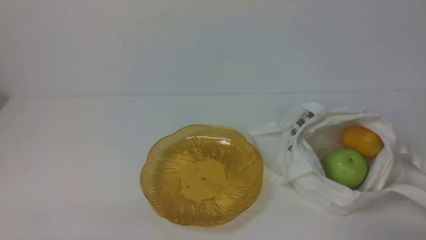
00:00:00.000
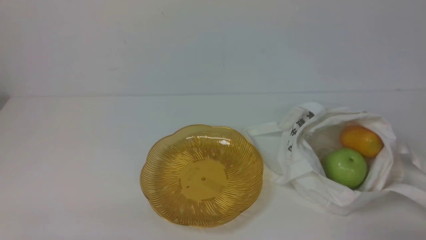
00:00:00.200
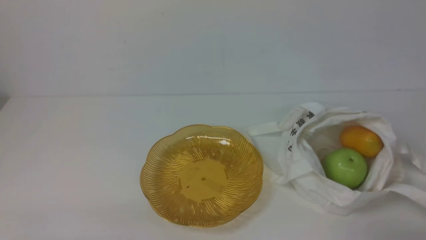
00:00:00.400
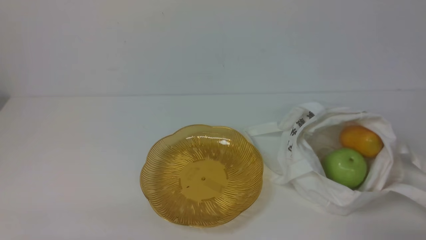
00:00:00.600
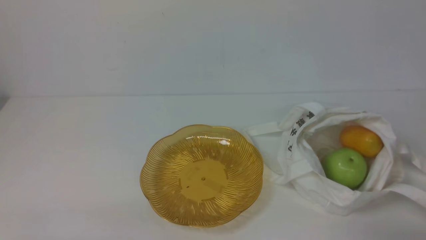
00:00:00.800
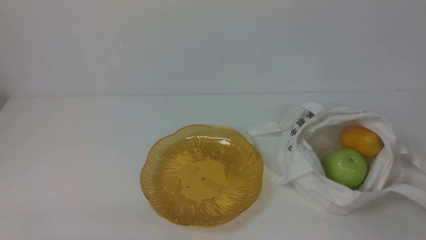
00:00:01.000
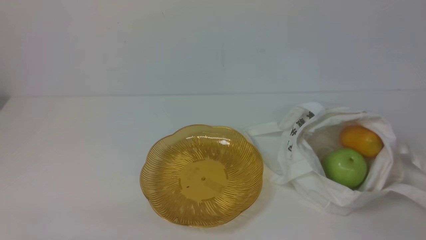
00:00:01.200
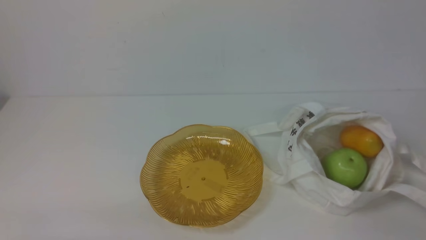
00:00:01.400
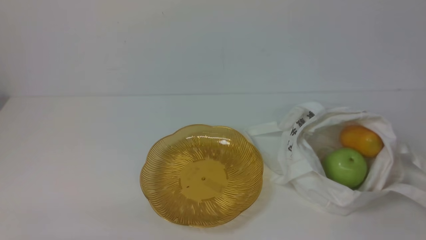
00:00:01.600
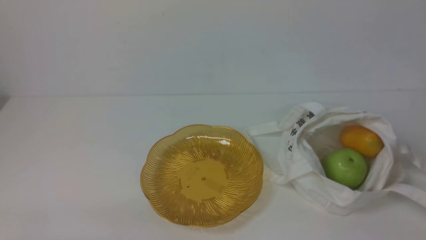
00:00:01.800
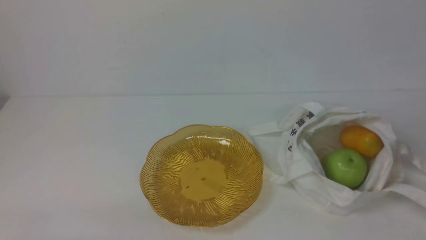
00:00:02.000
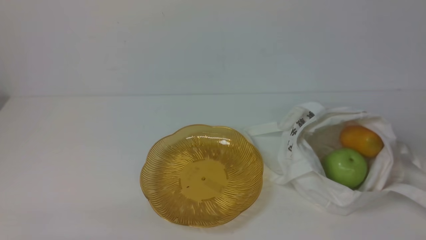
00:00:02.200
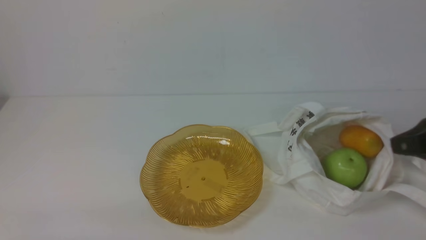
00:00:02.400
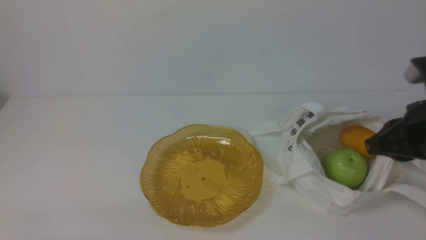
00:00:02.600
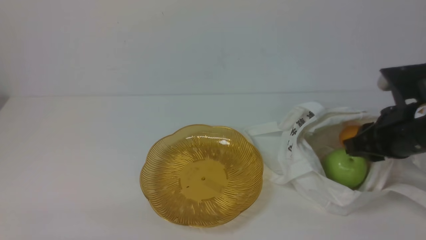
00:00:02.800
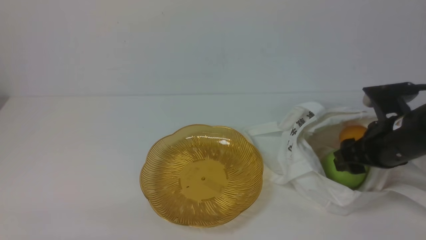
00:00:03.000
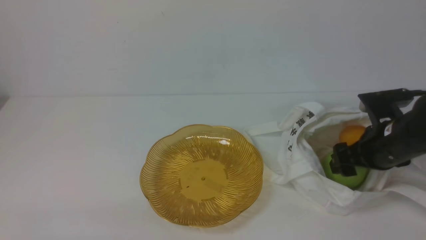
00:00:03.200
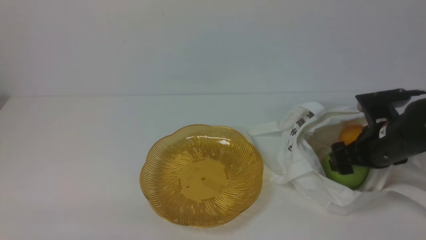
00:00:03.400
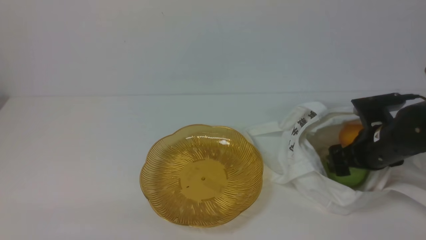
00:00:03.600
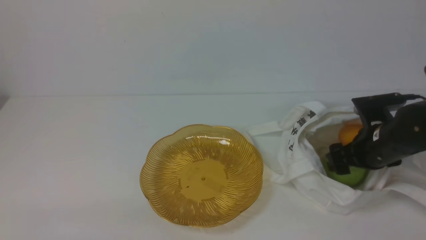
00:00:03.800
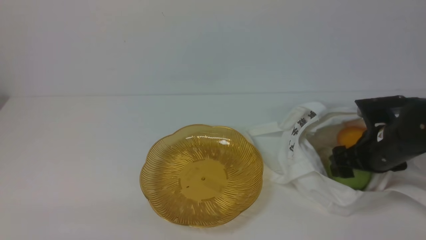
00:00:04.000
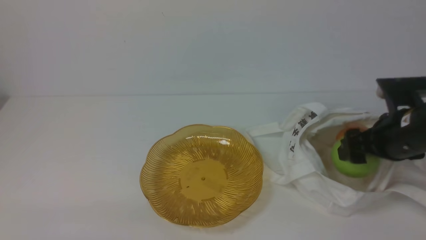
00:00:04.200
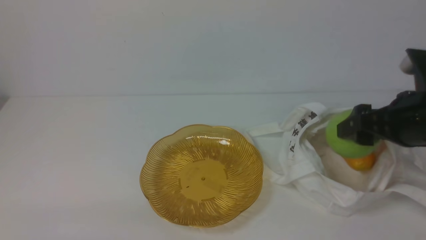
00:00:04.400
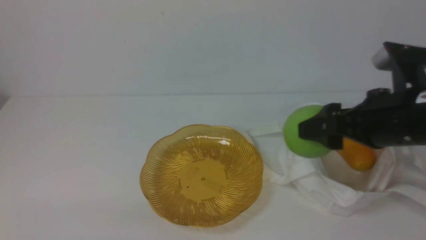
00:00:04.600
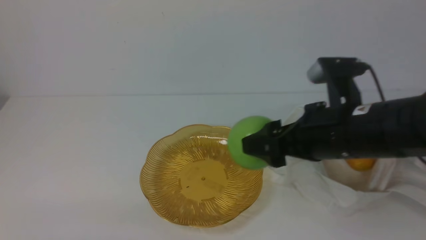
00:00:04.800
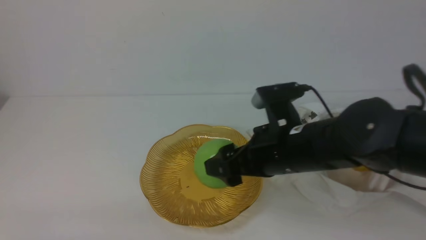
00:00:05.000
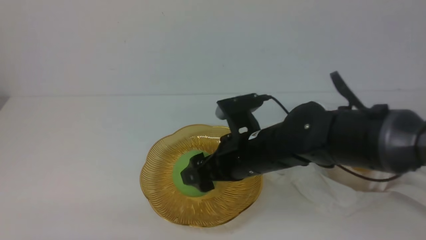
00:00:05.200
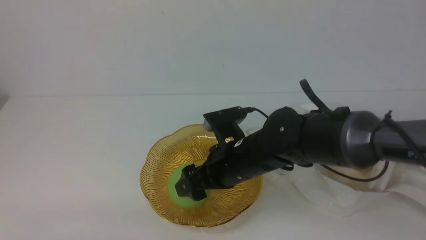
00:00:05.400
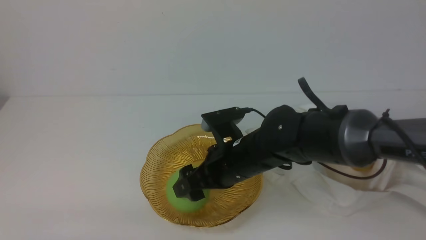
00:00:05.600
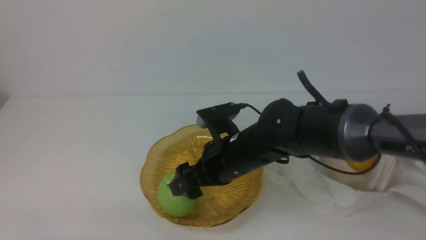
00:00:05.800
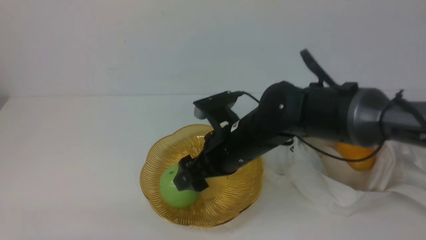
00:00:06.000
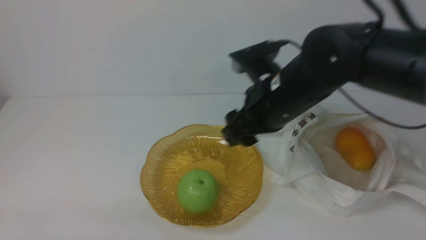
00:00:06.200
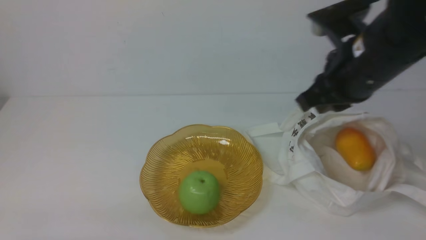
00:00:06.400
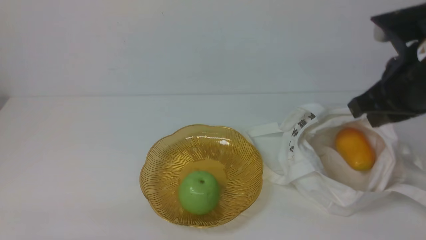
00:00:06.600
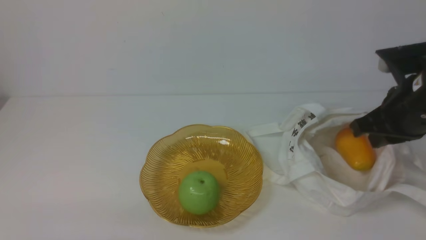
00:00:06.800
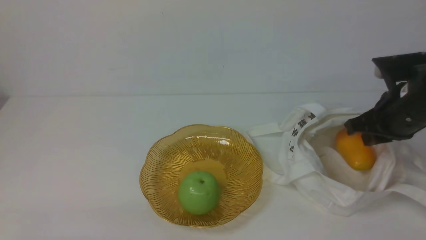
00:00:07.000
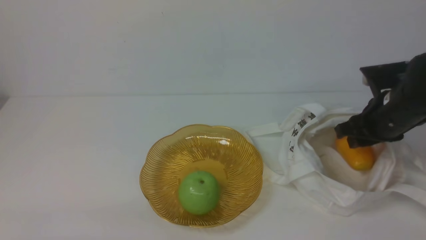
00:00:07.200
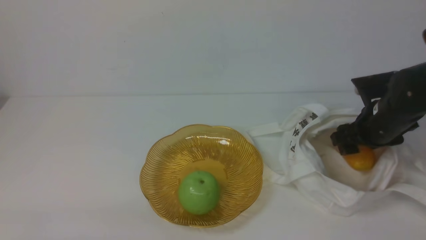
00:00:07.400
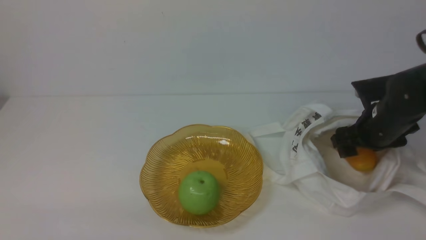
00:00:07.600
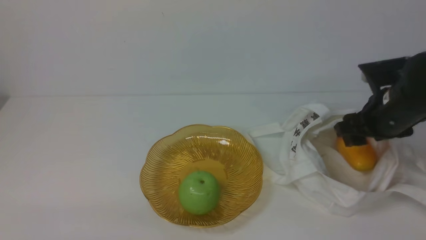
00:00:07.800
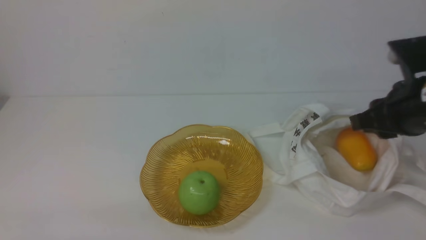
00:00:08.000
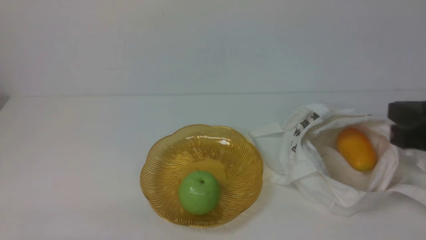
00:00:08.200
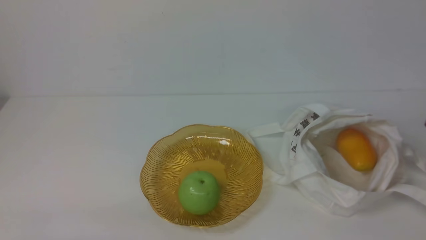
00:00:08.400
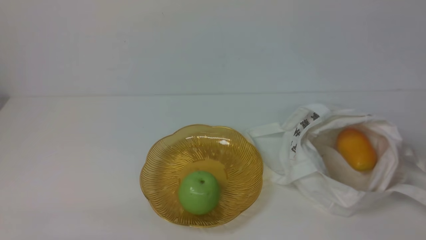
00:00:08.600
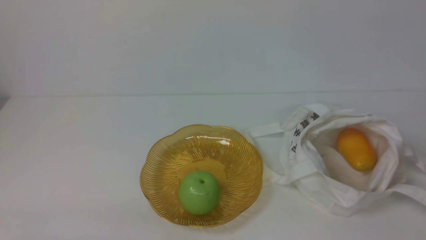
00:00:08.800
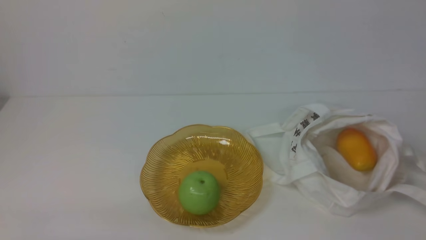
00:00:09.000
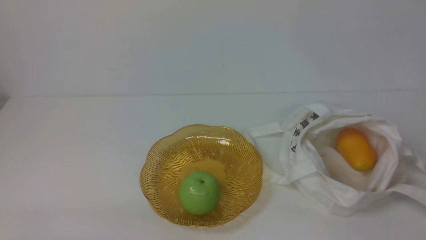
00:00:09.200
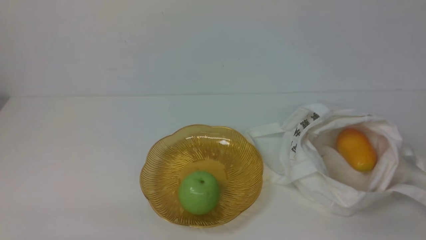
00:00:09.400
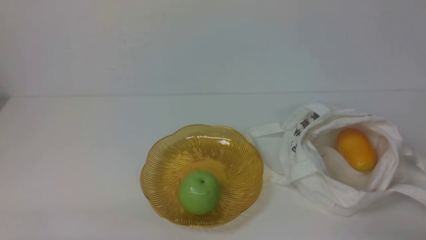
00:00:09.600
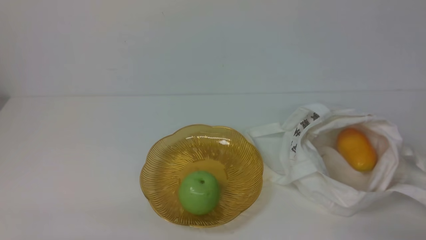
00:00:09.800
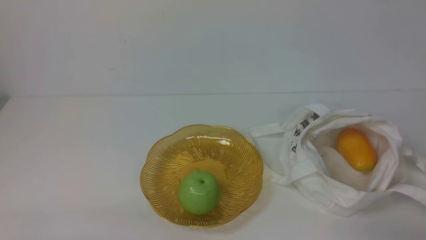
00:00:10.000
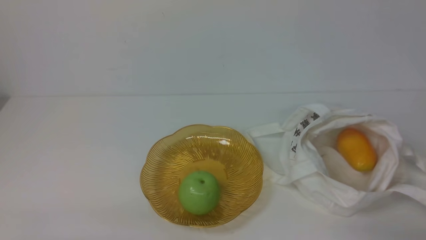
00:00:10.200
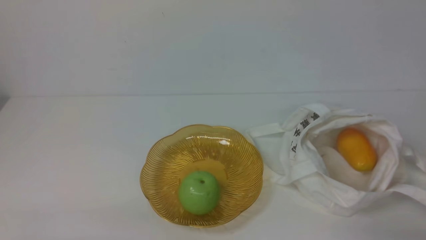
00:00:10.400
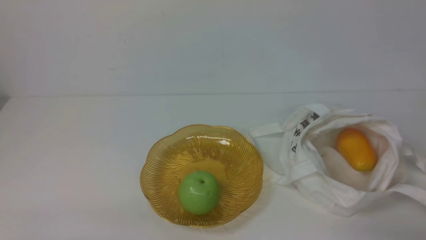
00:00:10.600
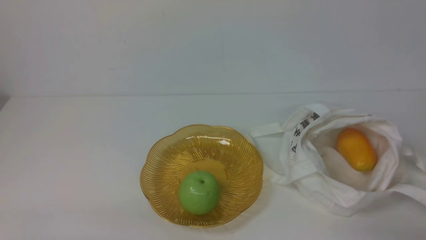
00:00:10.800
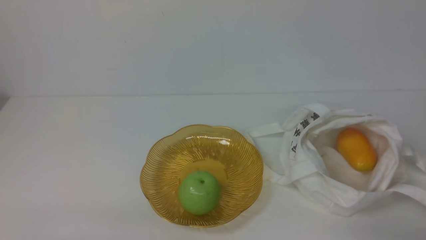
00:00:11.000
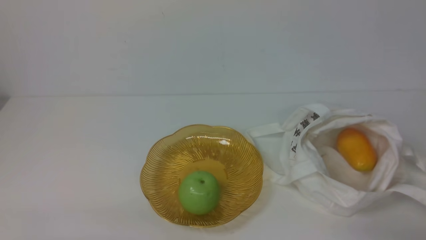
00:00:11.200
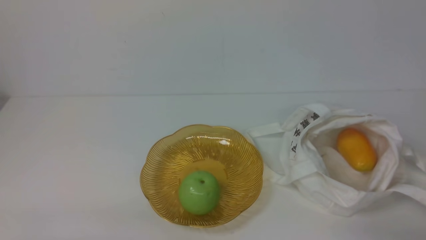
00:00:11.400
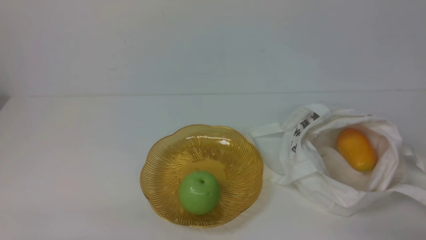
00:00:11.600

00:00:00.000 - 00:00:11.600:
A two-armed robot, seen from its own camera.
Step, 00:00:00.000 - 00:00:04.000: use the right arm to grab an apple from the bag.
Step, 00:00:04.200 - 00:00:05.600: use the right arm to put the apple into the empty plate on the left.
00:00:01.400 - 00:00:02.800: The right gripper moves forward, about 20 cm, and opens.
00:00:02.800 - 00:00:04.400: The right gripper moves some 10 cm downward and comes back, and opens up.
00:00:04.400 - 00:00:05.800: The right gripper goes approximately 20 cm to the left.
00:00:05.800 - 00:00:07.200: The right gripper moves to the right, some 25 cm, and closes up.
00:00:07.200 - 00:00:08.800: The right gripper travels backward by about 30 cm, and closes up.
00:00:10.200 - 00:00:11.600: The two grippers keep their place.
